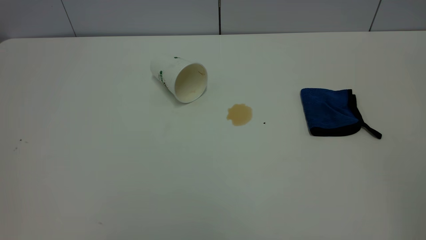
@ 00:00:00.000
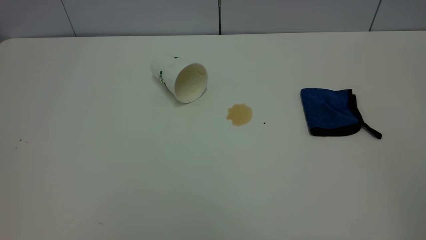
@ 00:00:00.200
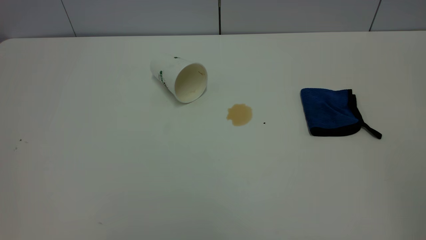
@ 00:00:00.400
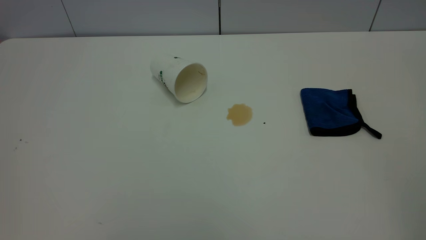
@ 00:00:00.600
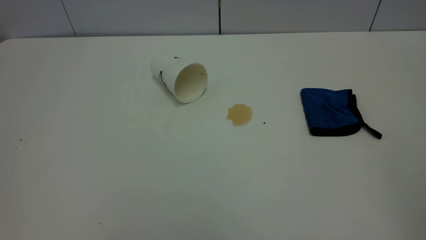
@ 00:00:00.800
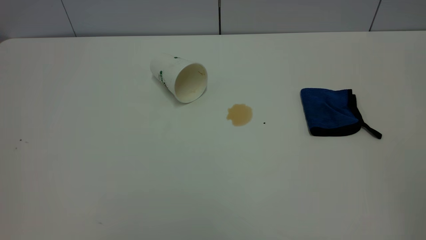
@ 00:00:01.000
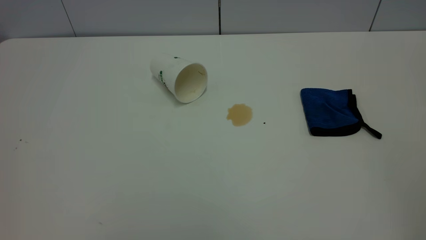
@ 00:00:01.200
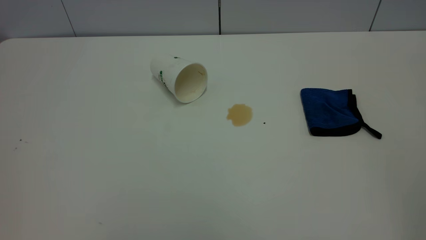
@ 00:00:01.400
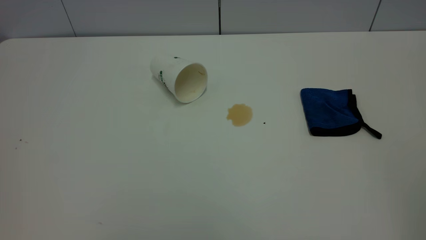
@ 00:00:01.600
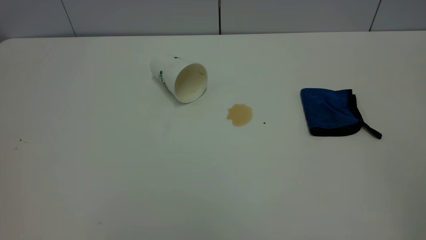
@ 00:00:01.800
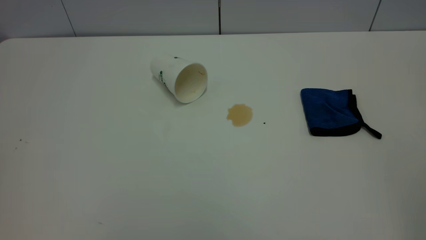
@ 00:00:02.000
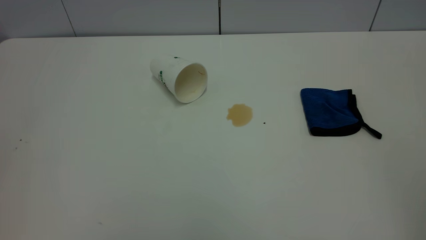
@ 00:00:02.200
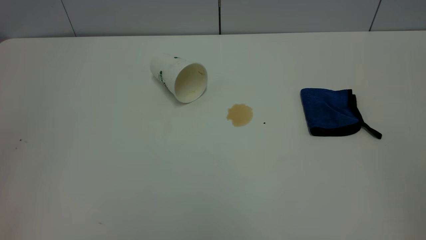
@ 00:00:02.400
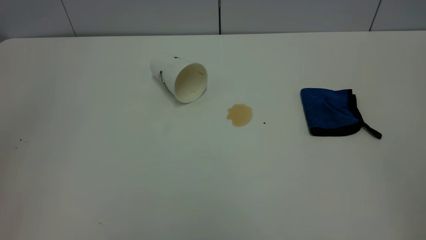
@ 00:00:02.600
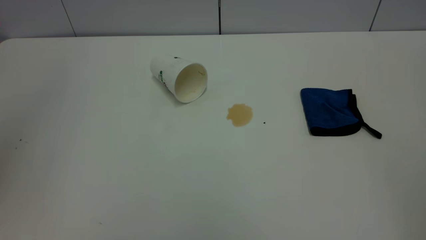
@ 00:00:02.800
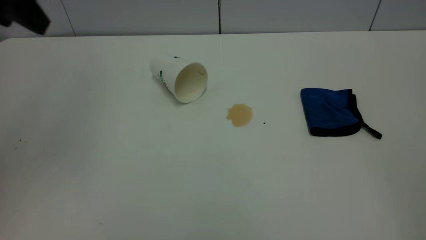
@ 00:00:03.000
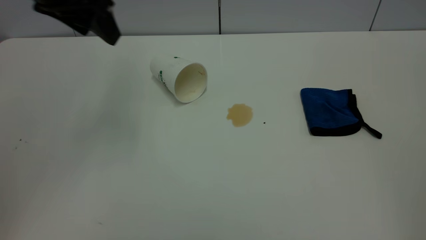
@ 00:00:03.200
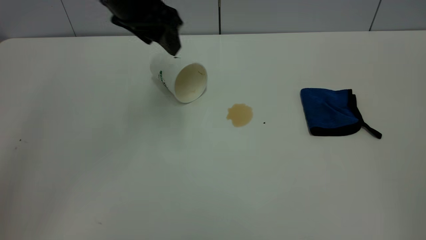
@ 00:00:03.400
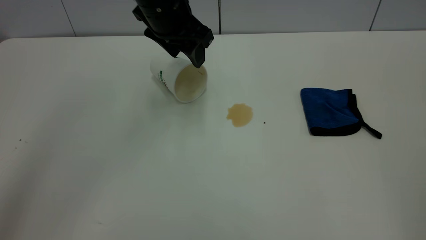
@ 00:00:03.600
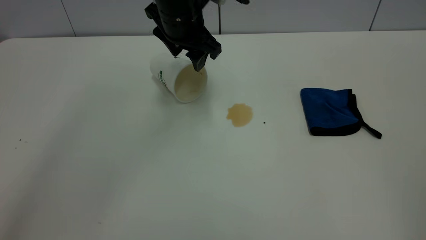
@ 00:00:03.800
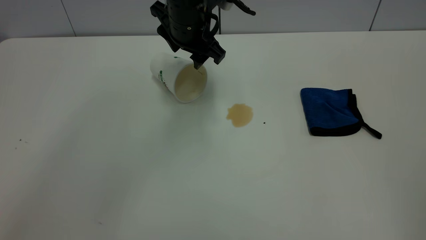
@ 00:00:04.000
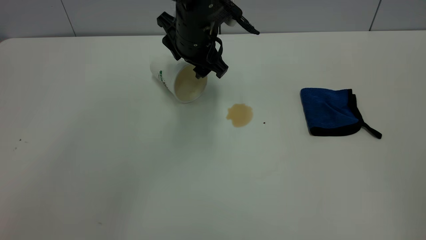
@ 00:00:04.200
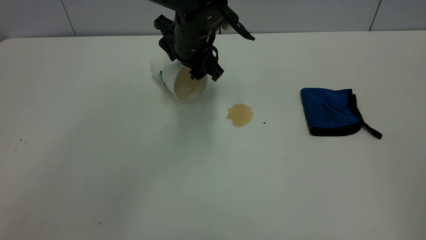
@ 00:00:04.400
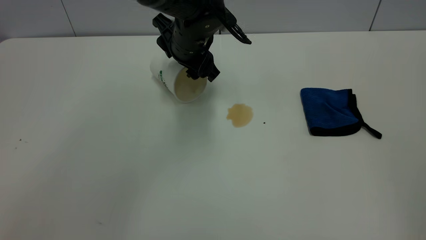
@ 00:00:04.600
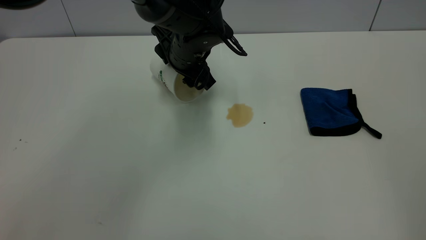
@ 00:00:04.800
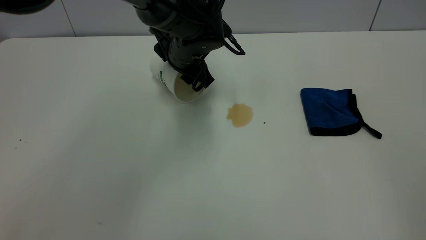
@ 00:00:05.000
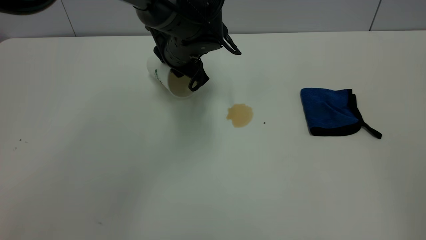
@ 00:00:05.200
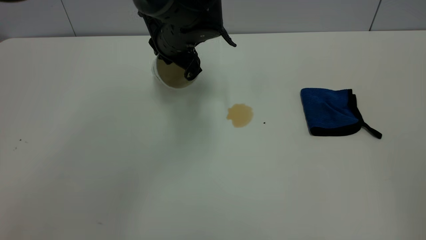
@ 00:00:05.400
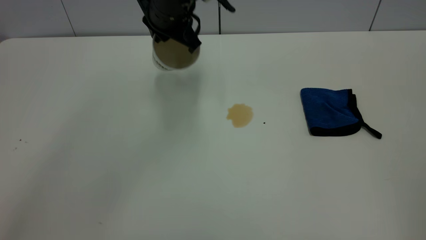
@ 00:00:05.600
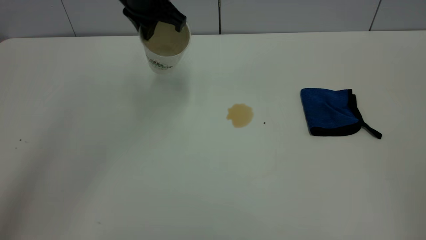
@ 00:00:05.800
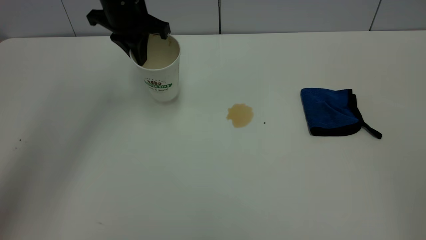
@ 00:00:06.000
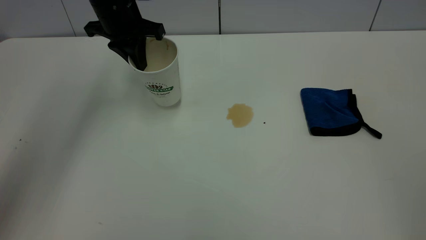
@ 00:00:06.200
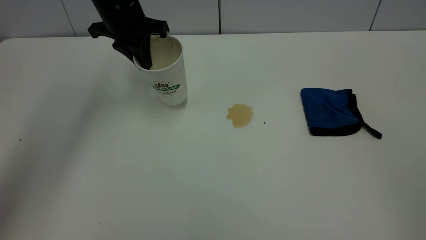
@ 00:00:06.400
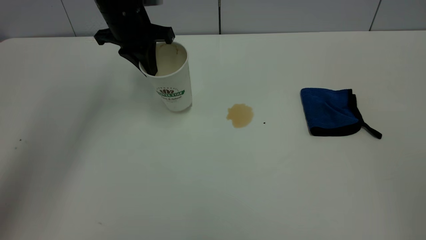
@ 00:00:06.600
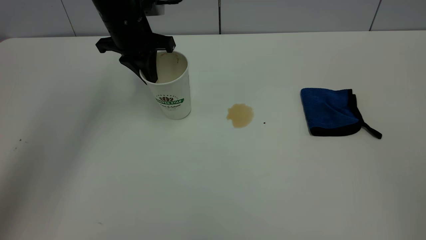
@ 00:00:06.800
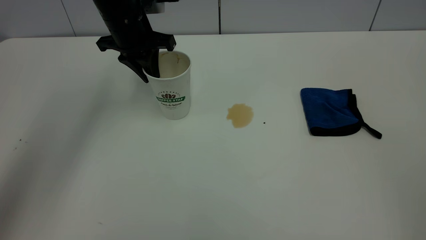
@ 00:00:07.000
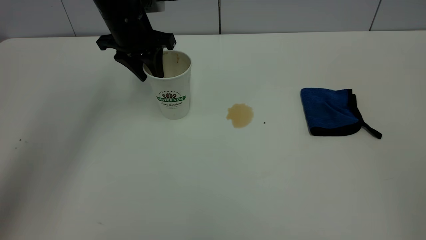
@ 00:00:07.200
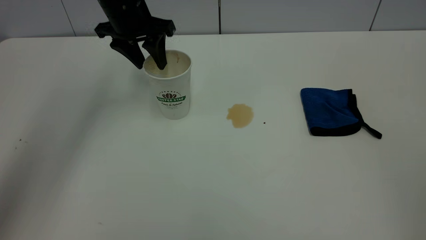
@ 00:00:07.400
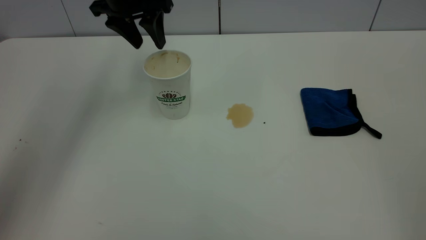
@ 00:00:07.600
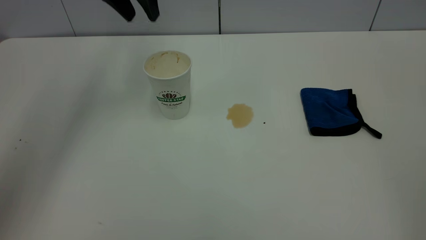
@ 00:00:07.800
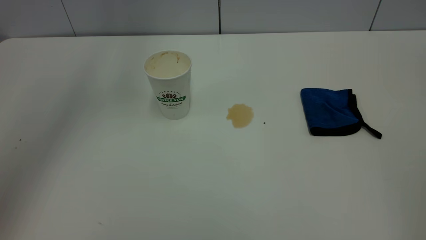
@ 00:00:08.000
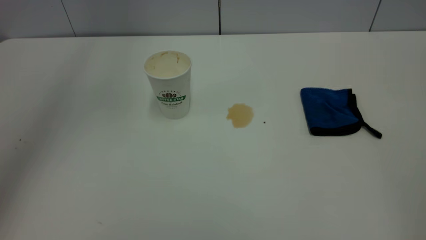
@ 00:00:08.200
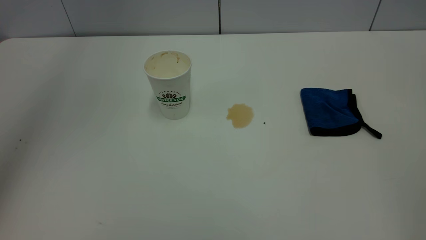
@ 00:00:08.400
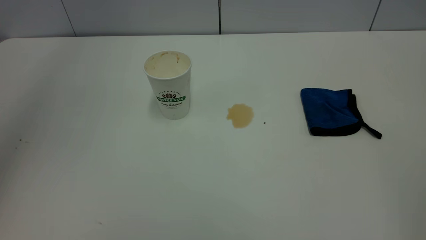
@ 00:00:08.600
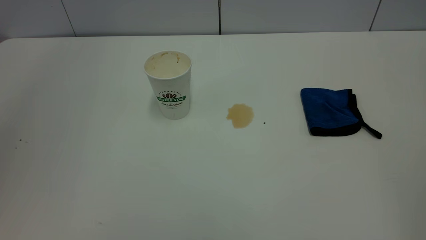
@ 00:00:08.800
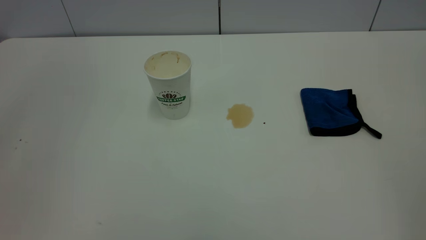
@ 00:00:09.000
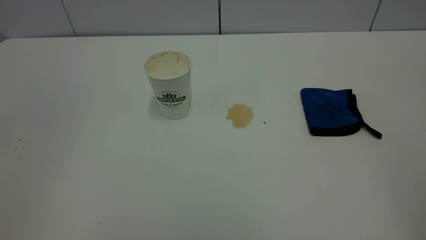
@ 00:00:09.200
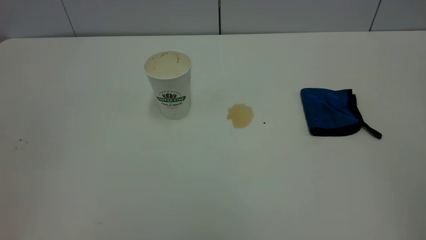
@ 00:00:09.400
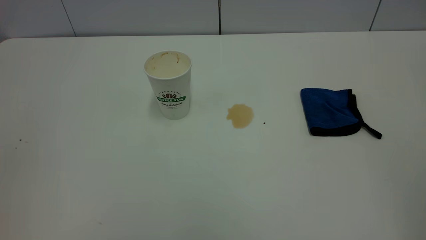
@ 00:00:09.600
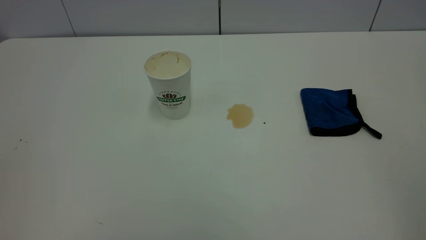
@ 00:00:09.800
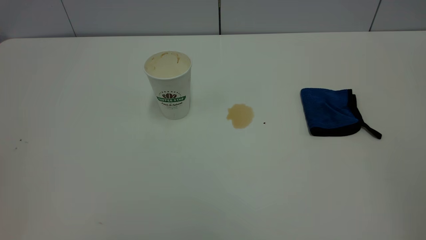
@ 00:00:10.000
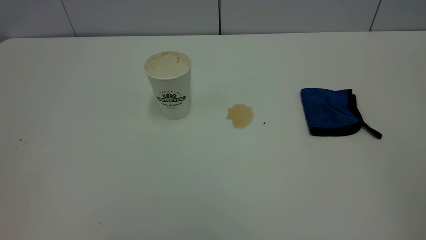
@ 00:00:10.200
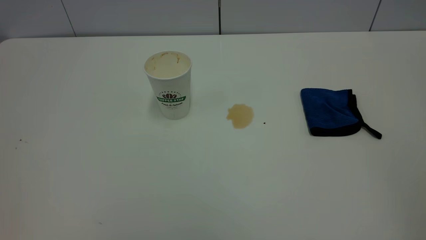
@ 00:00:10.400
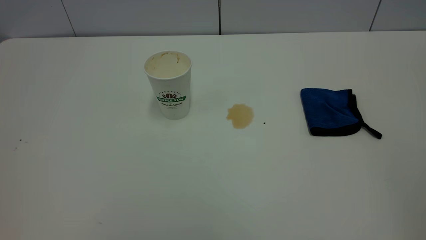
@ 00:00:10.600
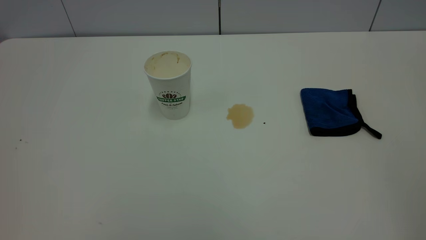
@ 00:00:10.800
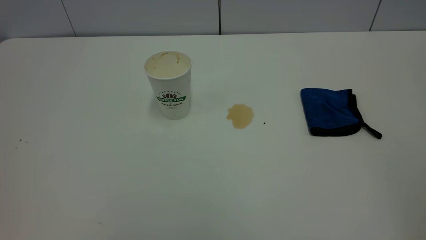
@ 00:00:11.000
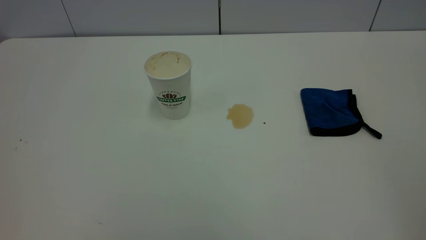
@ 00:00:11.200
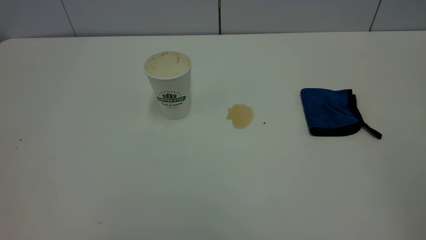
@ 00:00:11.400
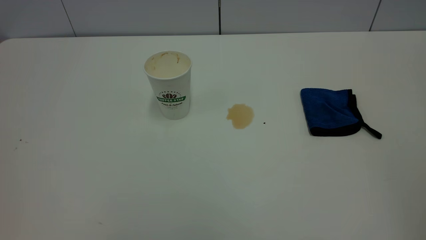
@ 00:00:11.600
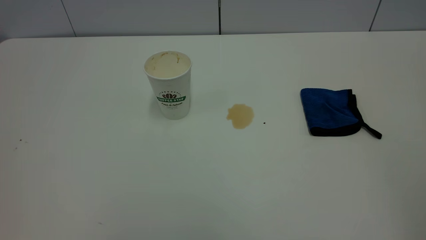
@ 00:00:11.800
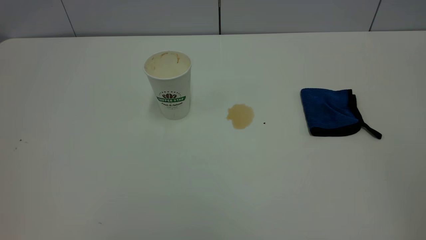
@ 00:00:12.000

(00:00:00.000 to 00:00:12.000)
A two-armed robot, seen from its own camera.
Task of the whole recording: the left gripper pick up the fallen cup and place it upright, the right gripper grasp the blue rag and wipe the tea stain on the table, the right gripper put the blue rag back in its original position.
Step, 00:00:00.000 - 00:00:07.400: Stand the paper cup upright.
00:00:00.000 - 00:00:01.600: The two grippers keep their place.
00:00:01.600 - 00:00:03.000: The left gripper shifts about 30 cm forward.
00:00:03.000 - 00:00:04.400: The left gripper shifts roughly 30 cm to the right, downward and forward.
00:00:04.400 - 00:00:06.000: The left gripper moves to the left and upward, about 15 cm, and closes up.
00:00:06.000 - 00:00:07.600: The left gripper opens.
00:00:07.600 - 00:00:09.000: The left gripper heads backward and upward, covering approximately 35 cm.

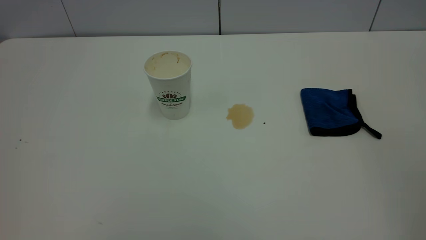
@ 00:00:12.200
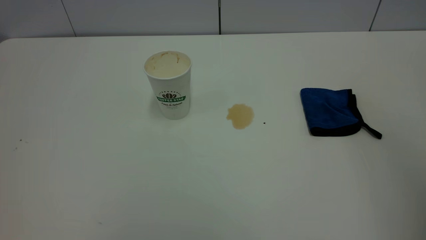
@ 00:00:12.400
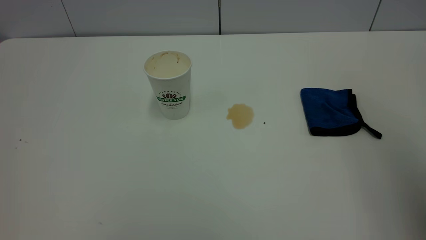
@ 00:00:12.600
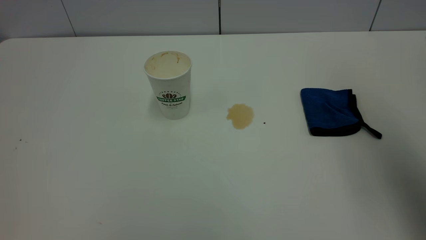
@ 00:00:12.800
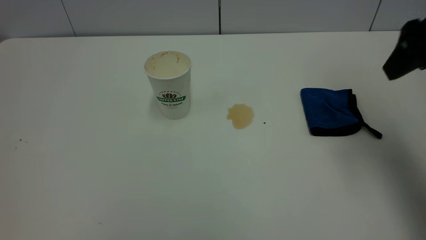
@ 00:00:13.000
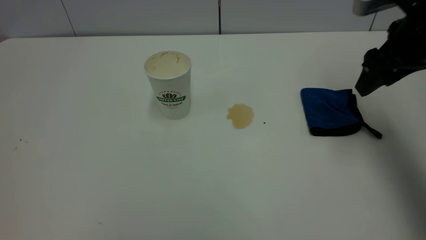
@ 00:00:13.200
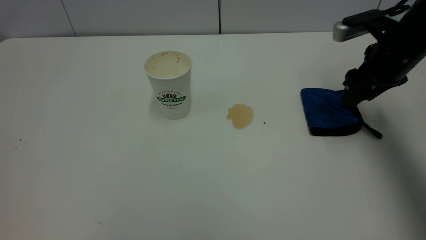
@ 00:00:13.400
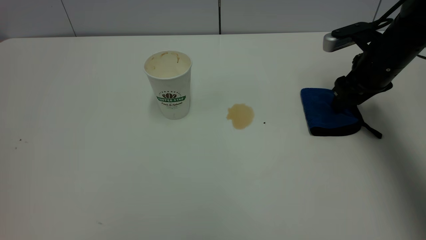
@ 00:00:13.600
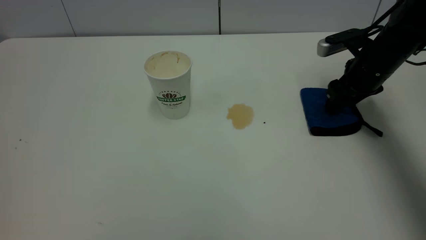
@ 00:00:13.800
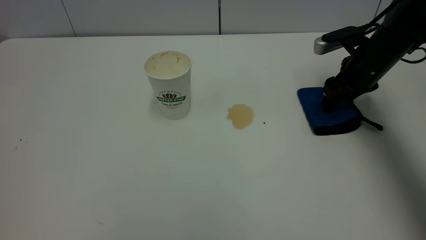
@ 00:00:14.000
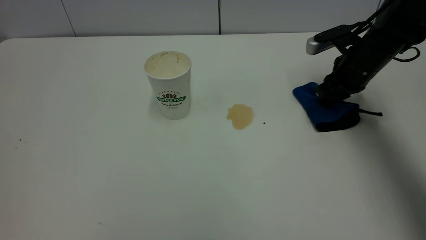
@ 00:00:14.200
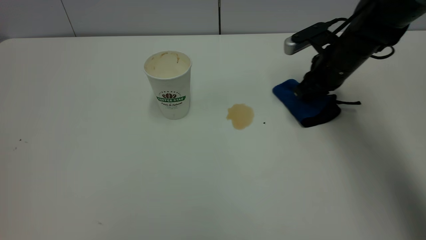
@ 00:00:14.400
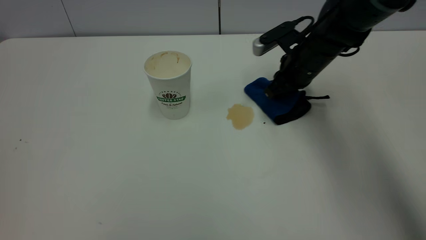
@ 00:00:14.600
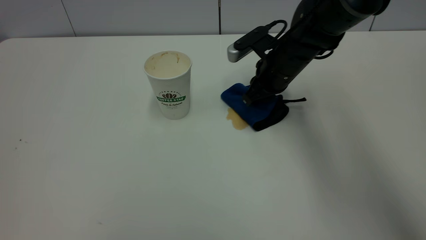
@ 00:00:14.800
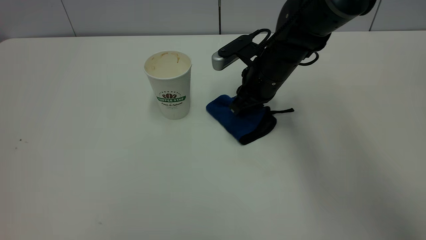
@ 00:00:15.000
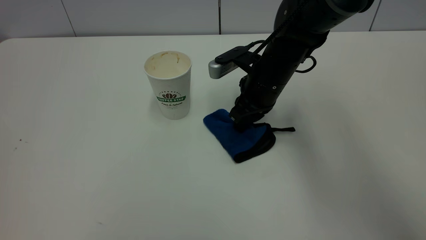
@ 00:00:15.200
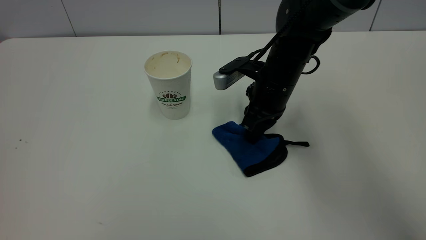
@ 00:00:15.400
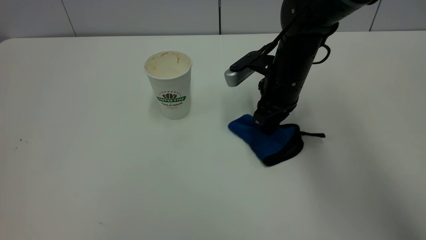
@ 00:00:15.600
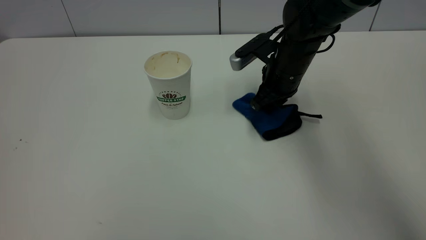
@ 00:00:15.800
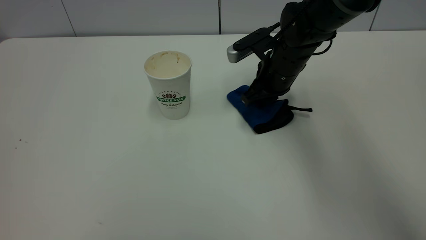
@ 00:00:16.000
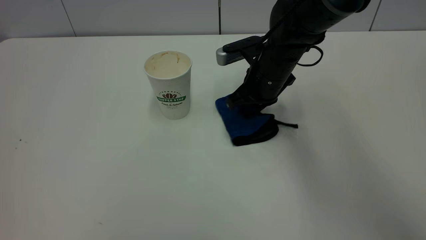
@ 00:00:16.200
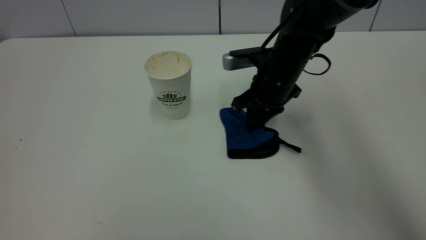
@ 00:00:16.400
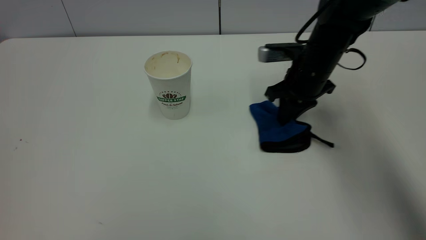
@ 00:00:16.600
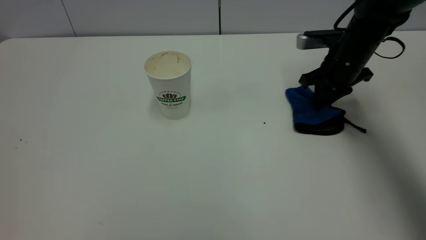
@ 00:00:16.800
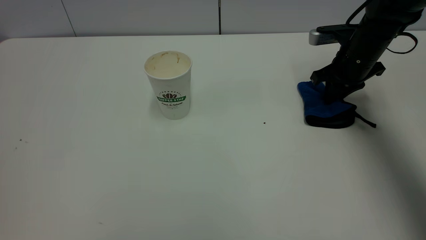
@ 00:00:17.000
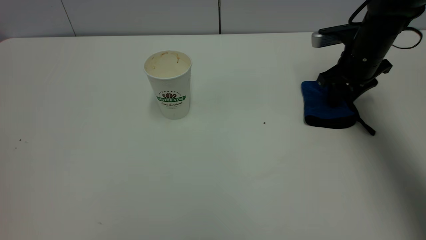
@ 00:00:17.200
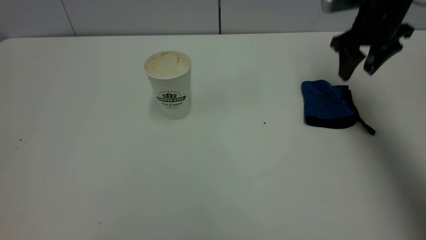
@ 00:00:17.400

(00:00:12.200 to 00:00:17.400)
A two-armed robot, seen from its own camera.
Task of the whole recording: the left gripper pick up the fallen cup and place it upright, the right gripper grasp the blue rag and wipe the tea stain on the table, the right gripper put the blue rag back in its original position.
Step, 00:00:12.200 - 00:00:17.400: Wipe the stains off the table with a rag.
00:00:12.200 - 00:00:14.000: The right gripper is displaced forward and downward by about 50 cm.
00:00:14.000 - 00:00:15.600: The right gripper heads to the left, covering about 15 cm, and closes its fingers.
00:00:15.600 - 00:00:17.400: The right gripper heads to the right and upward, covering some 20 cm, and opens.
